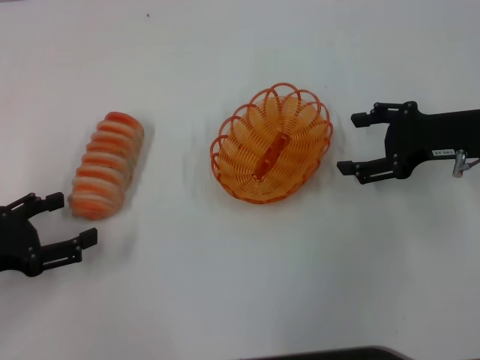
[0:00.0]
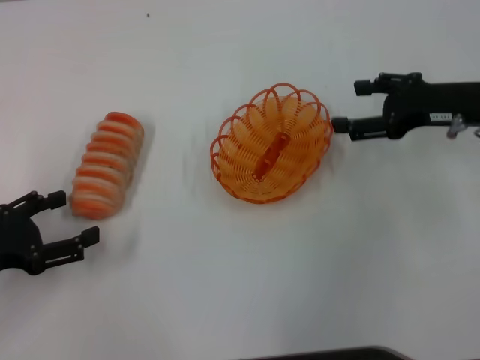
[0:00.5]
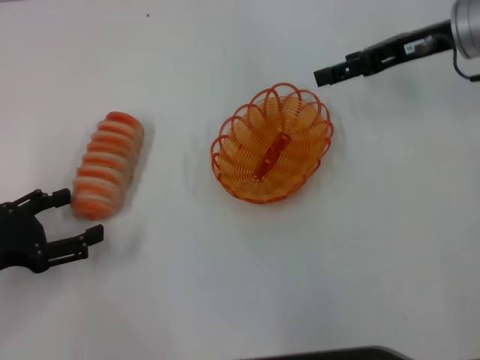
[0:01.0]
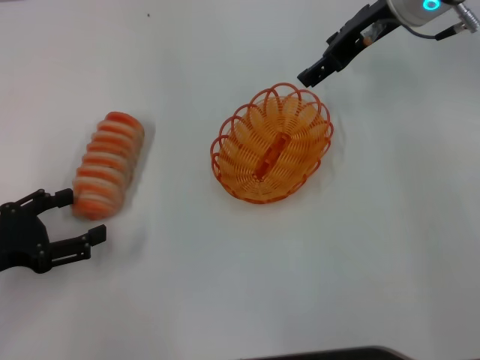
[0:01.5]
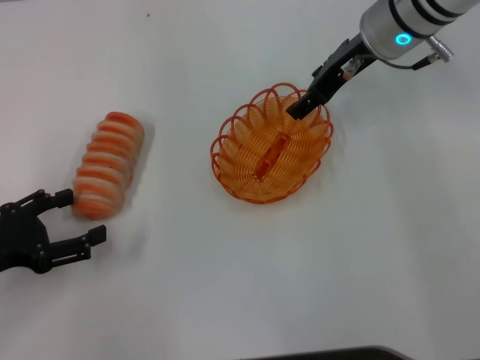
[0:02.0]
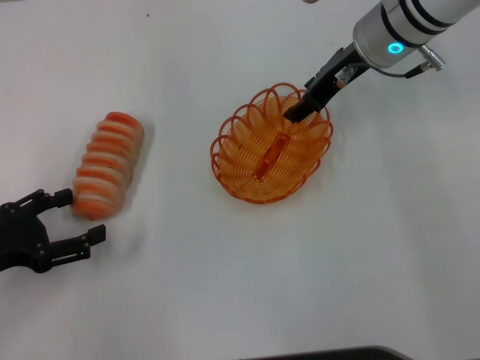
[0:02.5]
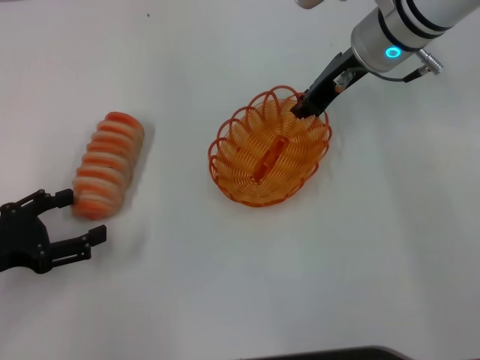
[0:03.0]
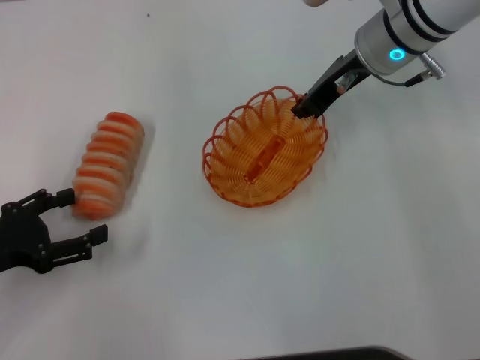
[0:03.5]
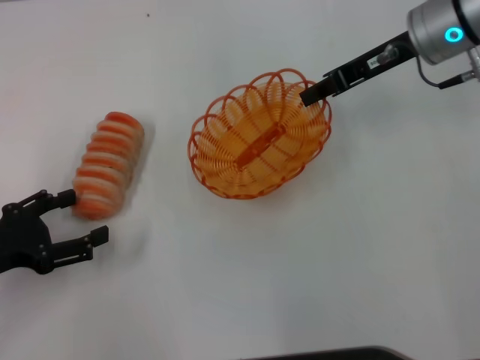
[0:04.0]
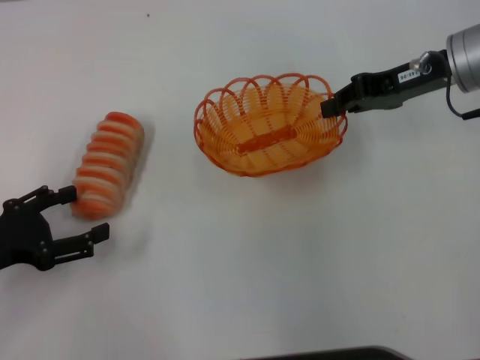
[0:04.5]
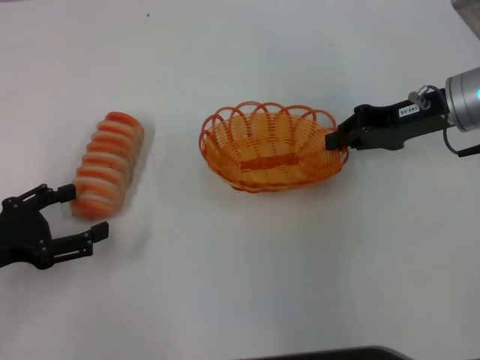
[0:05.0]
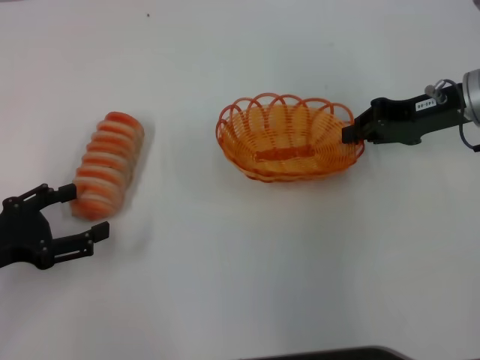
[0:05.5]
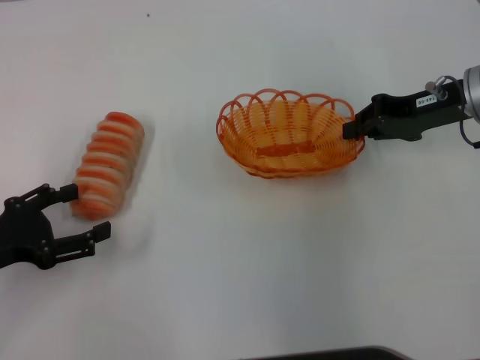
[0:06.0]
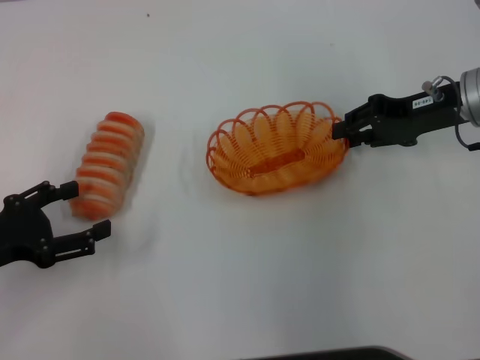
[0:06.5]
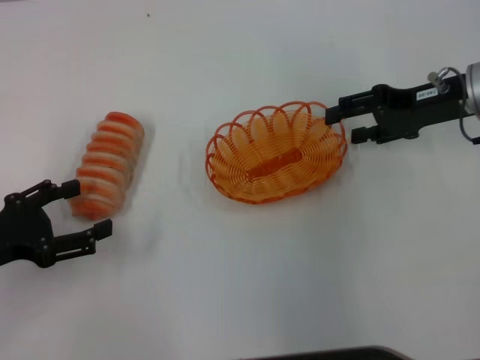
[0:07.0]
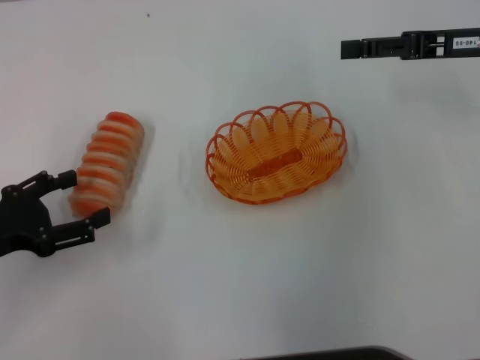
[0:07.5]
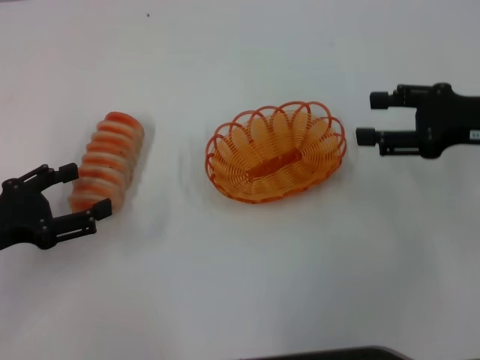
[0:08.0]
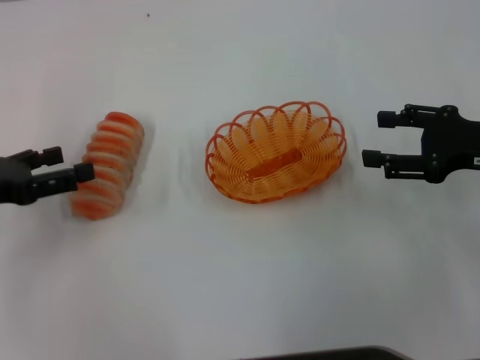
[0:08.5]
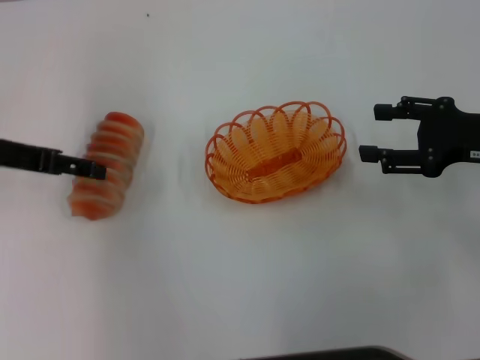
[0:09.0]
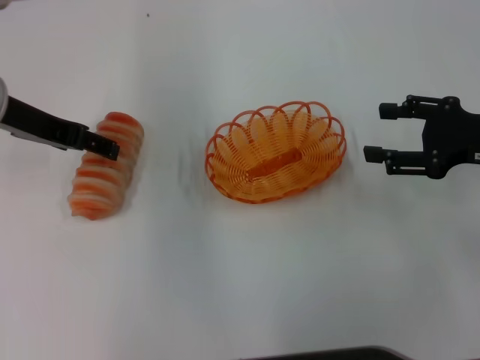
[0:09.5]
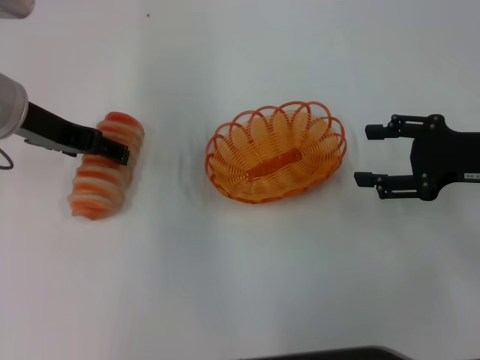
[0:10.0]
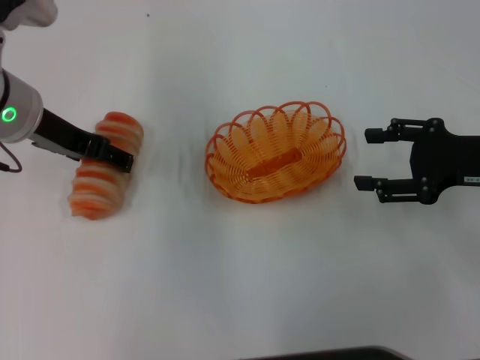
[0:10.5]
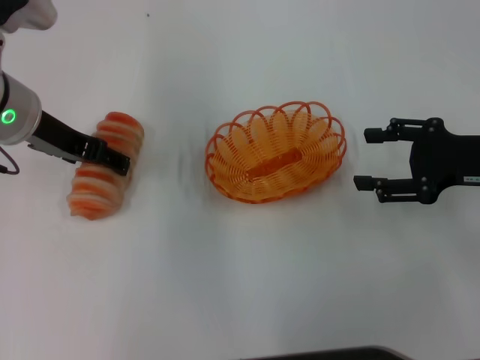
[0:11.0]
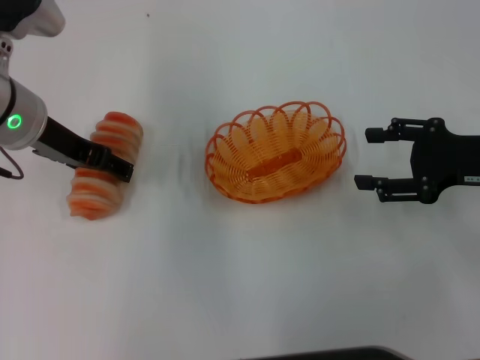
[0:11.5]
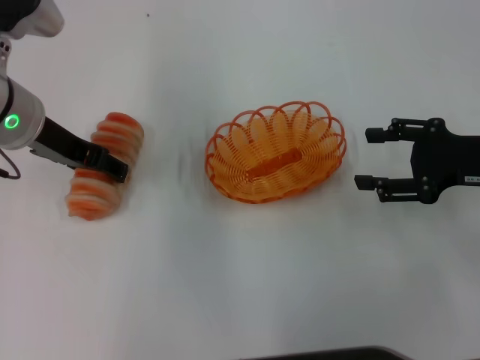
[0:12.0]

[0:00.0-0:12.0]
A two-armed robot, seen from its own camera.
Step, 0:00.0 to 0:03.5: Pick up the basket with the right gripper.
Step, 0:04.5 to 0:07.0: Place the basket in the center of view with the right gripper.
0:00.0 to 0:02.0: The right gripper is displaced to the left, forward and upward by about 15 cm.
0:02.0 to 0:04.0: The right gripper ends up approximately 5 cm from where it was, and closes up.
0:04.0 to 0:06.0: The right gripper moves to the right, approximately 5 cm.
0:06.0 to 0:08.0: The right gripper travels backward by roughly 5 cm, and opens.
0:08.0 to 0:10.0: The left gripper heads forward, to the right and upward, covering approximately 20 cm.
0:10.0 to 0:12.0: The grippers make only small movements.

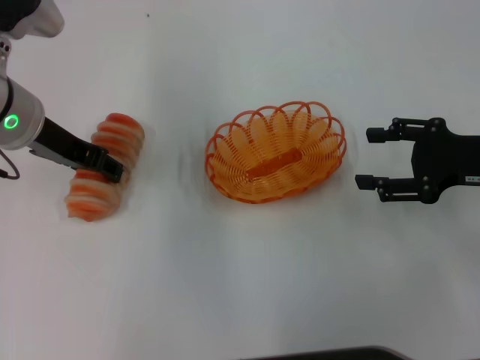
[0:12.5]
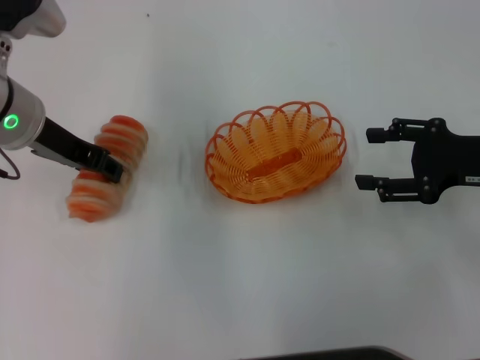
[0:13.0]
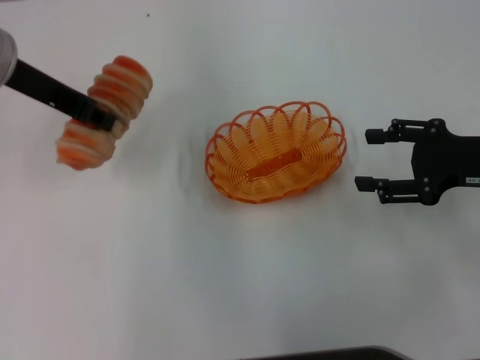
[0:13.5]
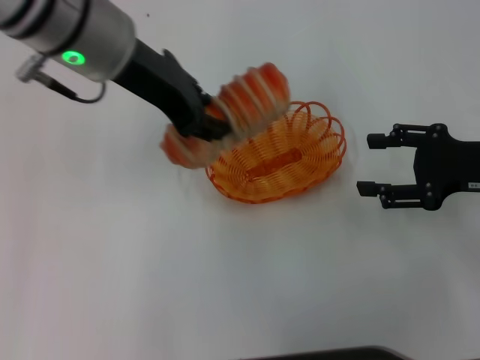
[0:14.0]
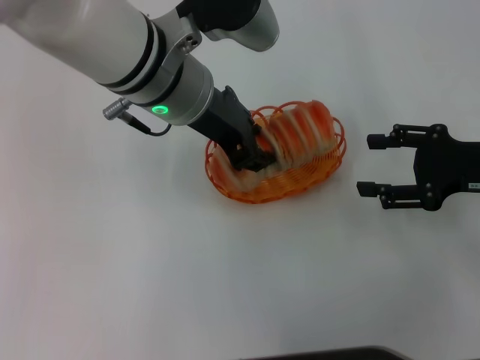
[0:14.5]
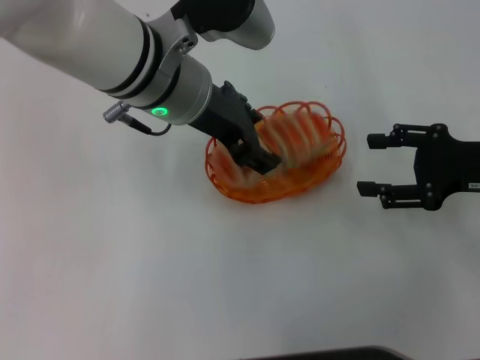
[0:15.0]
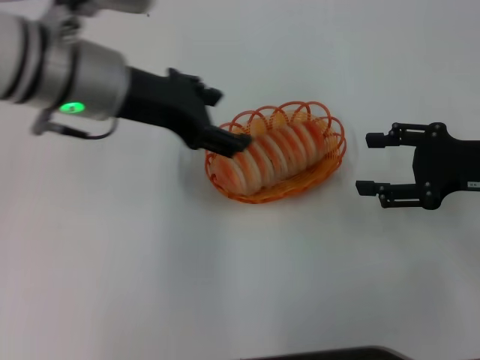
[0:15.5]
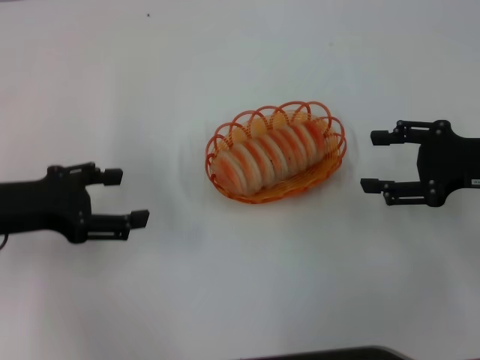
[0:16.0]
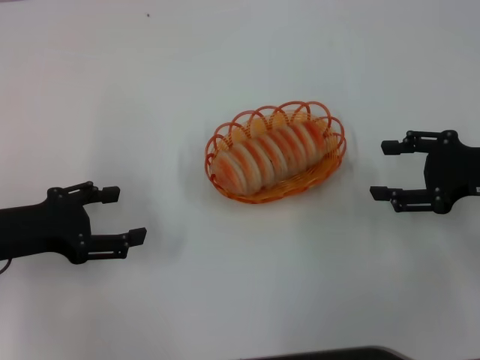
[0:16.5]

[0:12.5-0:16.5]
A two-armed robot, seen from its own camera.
Step, 0:13.5 to 0:15.0: Place the long bread into the basket with the left gripper.
0:12.5 to 0:14.5: The left gripper is displaced to the right by about 15 cm, and closes.
0:14.5 to 0:16.5: The left gripper shifts about 25 cm to the left and downward, and opens its fingers.

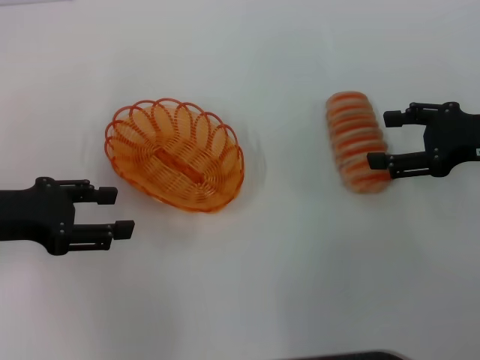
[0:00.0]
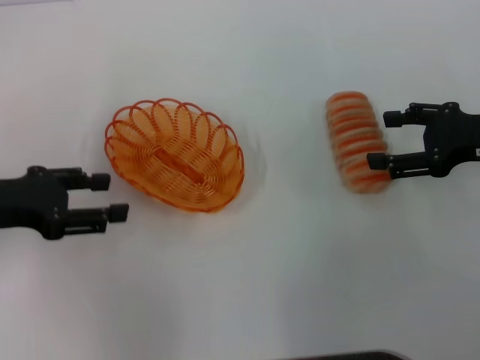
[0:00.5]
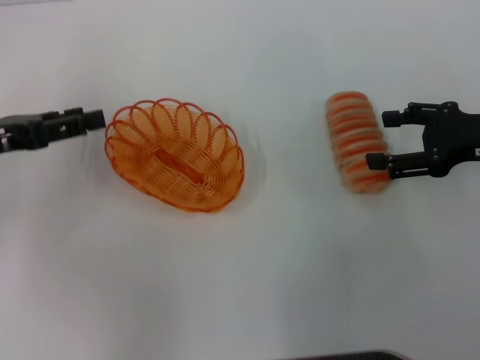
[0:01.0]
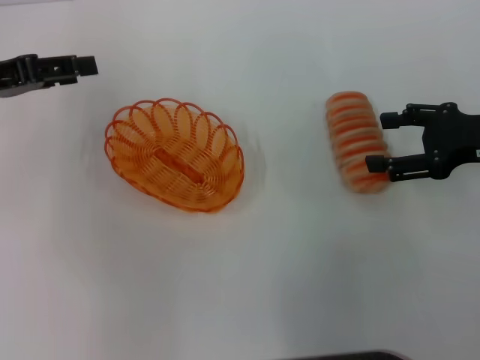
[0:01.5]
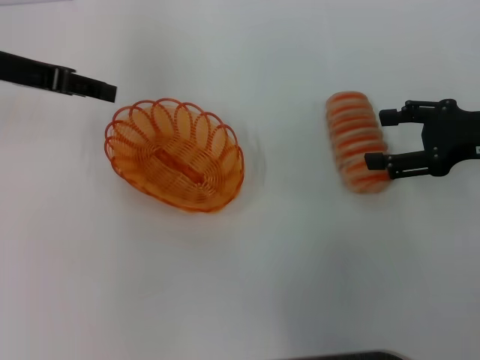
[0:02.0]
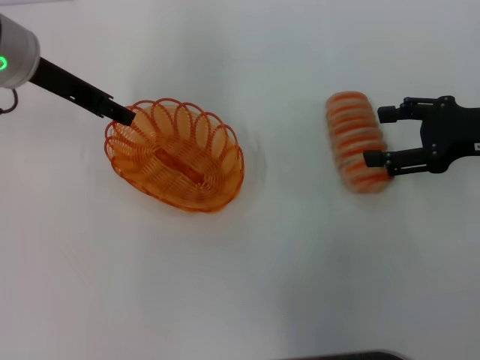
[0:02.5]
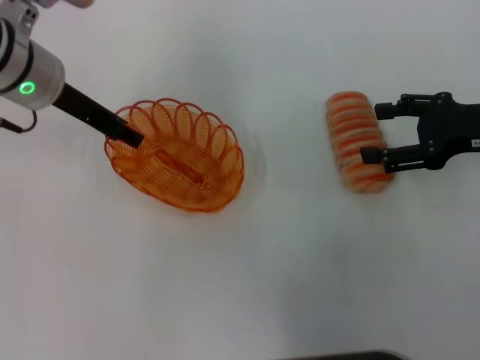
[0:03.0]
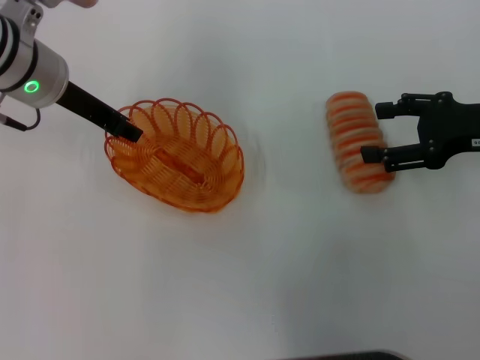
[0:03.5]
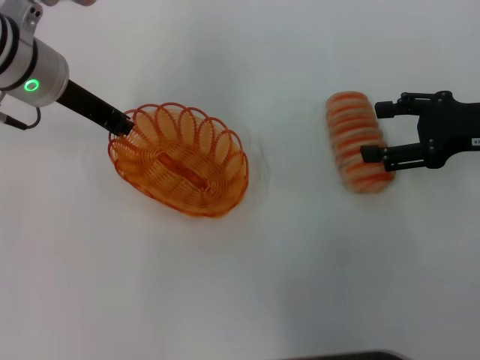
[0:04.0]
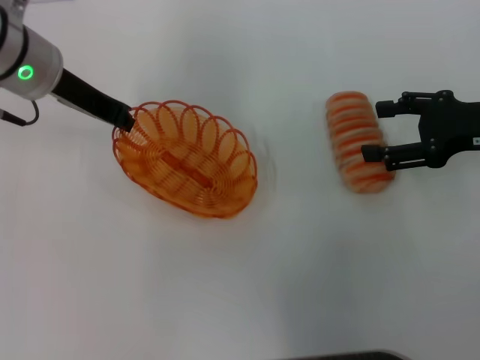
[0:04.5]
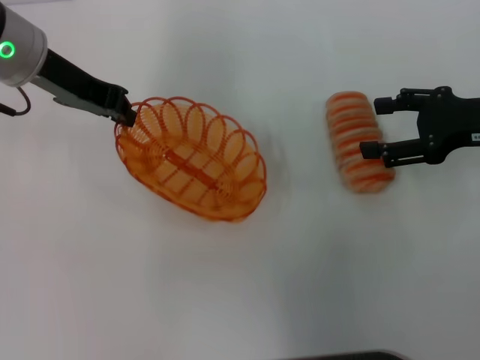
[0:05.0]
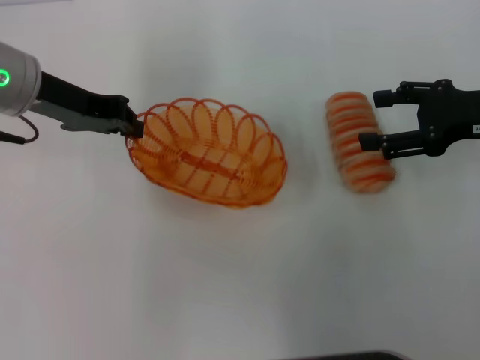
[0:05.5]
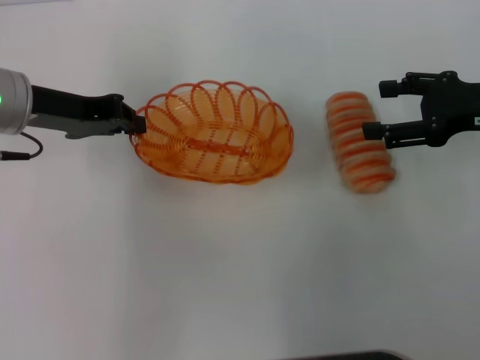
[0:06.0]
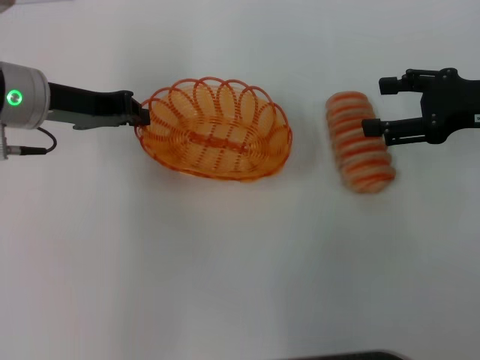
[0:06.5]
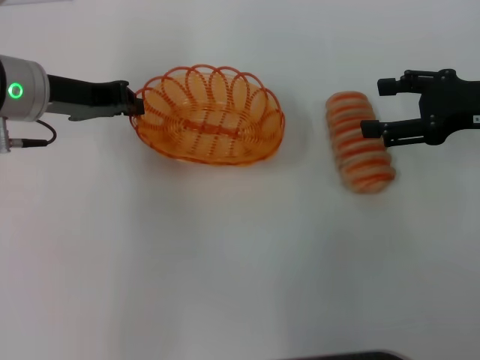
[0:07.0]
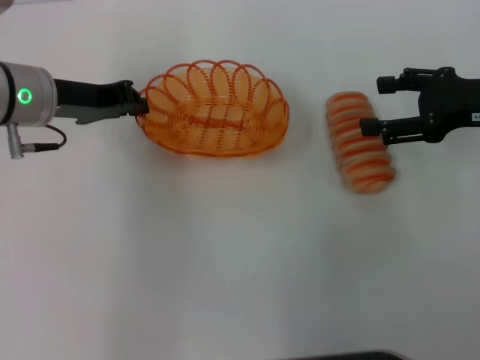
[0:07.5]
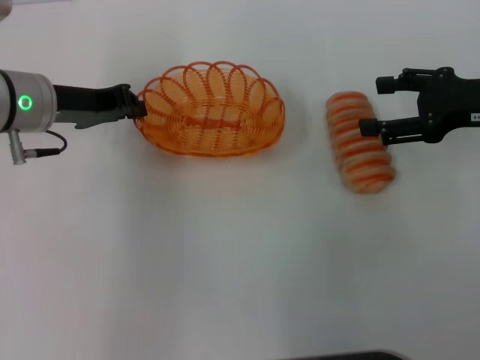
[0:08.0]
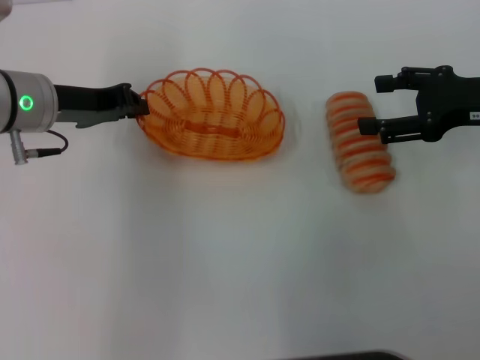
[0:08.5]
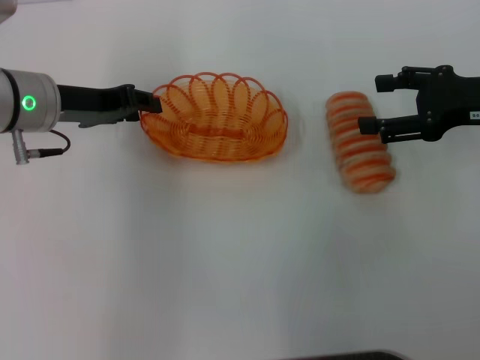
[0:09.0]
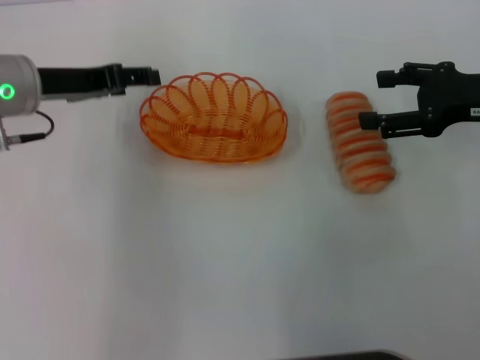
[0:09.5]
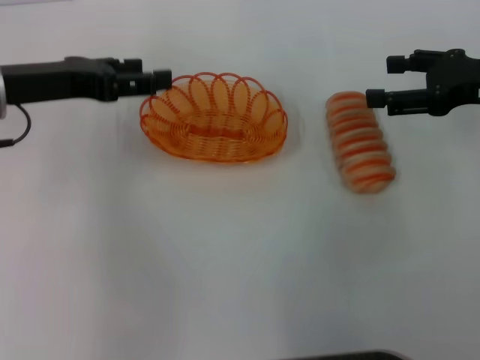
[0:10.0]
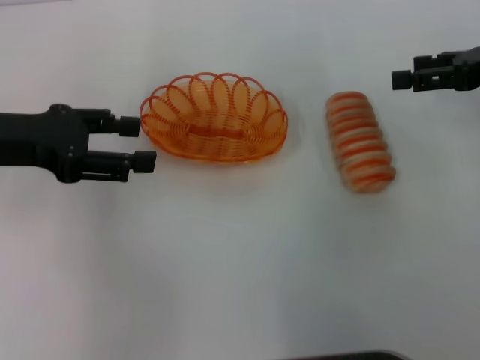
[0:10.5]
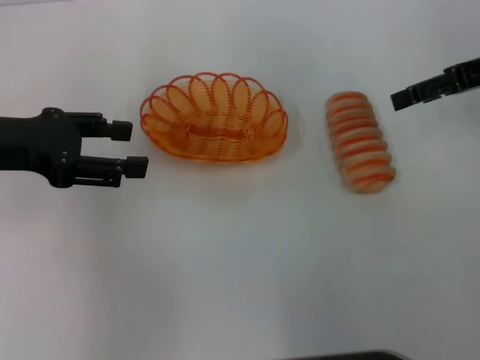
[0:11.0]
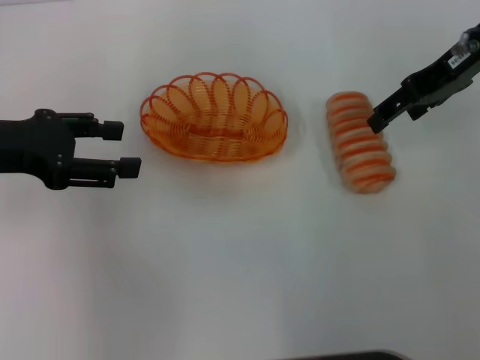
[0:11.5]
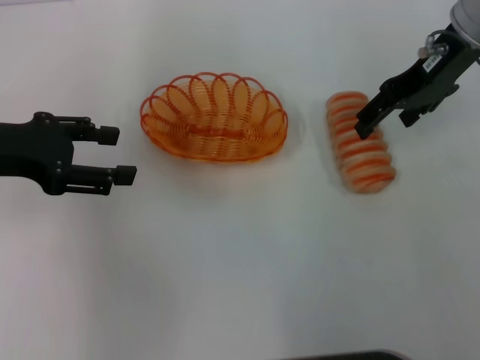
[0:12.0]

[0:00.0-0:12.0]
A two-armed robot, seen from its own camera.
Step, 0:00.0 to 0:05.0: Pick up the basket with the left gripper.
Step, 0:05.5 to 0:09.5: Place the basket in the center of view with the left gripper.
0:00.0 to 0:02.0: The left gripper goes approximately 15 cm forward and upward.
0:02.0 to 0:04.0: The left gripper travels to the right by approximately 5 cm, and closes its fingers.
0:04.0 to 0:06.0: The left gripper moves about 5 cm, and closes.
0:06.0 to 0:08.0: The grippers move only a little.
0:08.0 to 0:10.0: The left gripper ends up roughly 5 cm from where it was, and opens its fingers.
0:10.0 to 0:12.0: The right gripper is displaced to the left, forward and upward by about 15 cm, while the left gripper changes place by about 5 cm.
